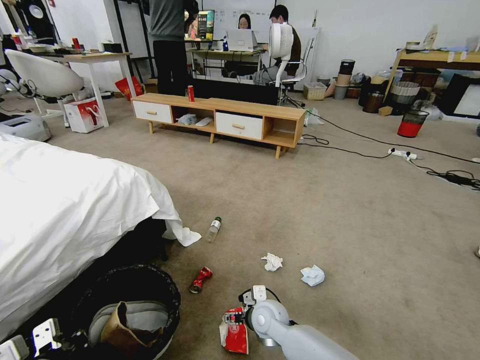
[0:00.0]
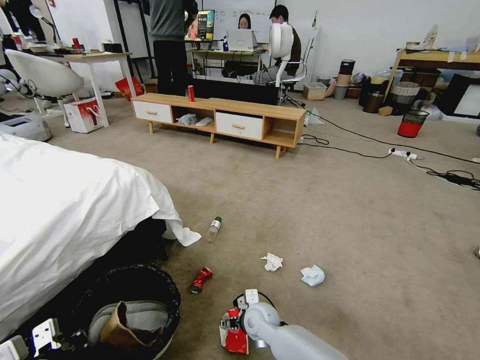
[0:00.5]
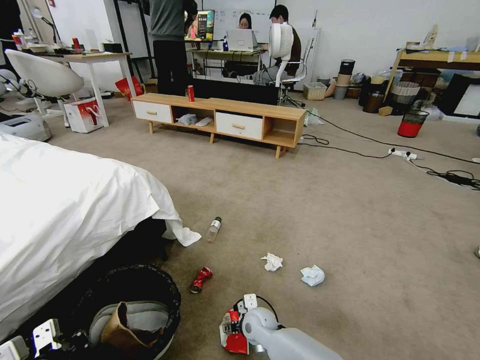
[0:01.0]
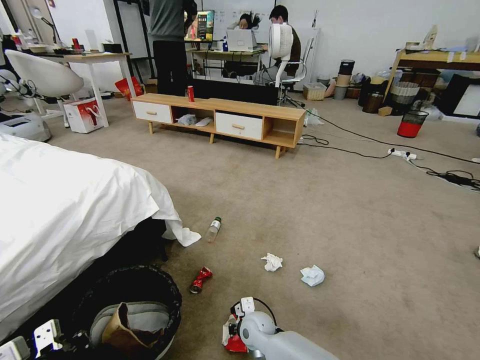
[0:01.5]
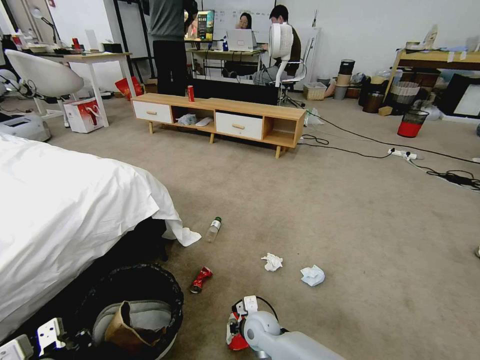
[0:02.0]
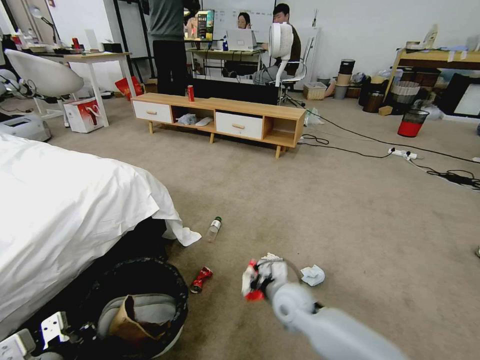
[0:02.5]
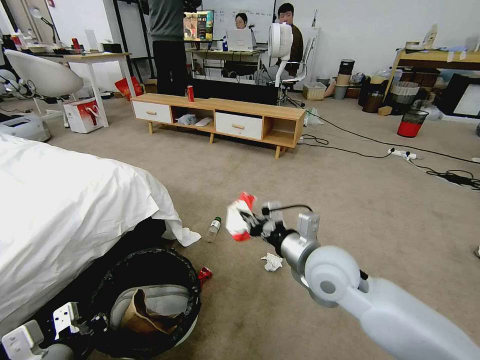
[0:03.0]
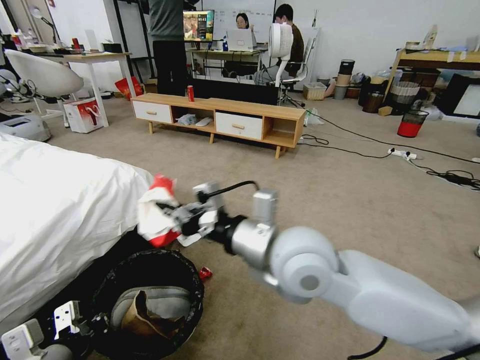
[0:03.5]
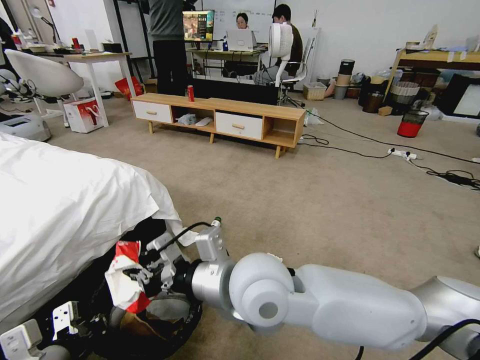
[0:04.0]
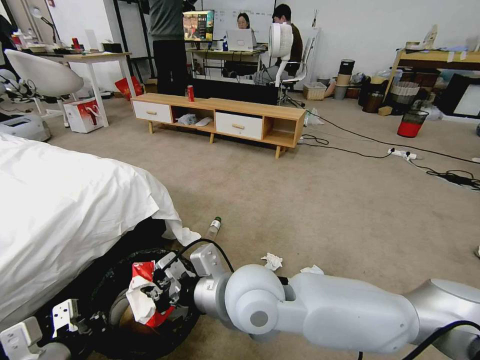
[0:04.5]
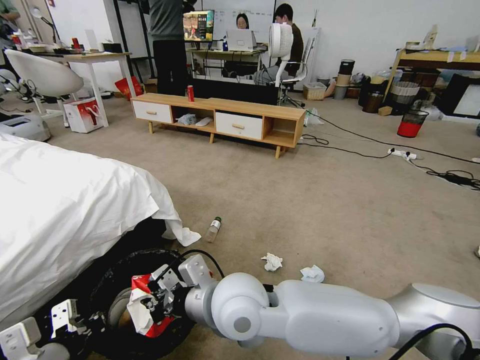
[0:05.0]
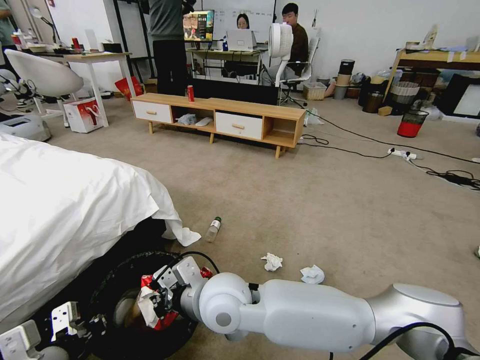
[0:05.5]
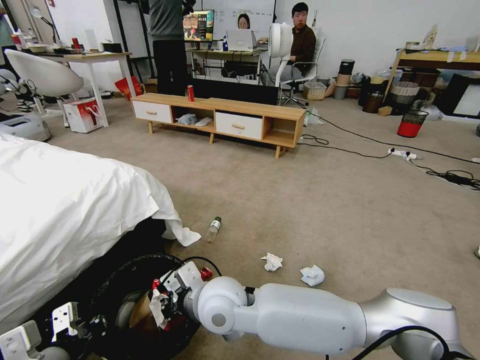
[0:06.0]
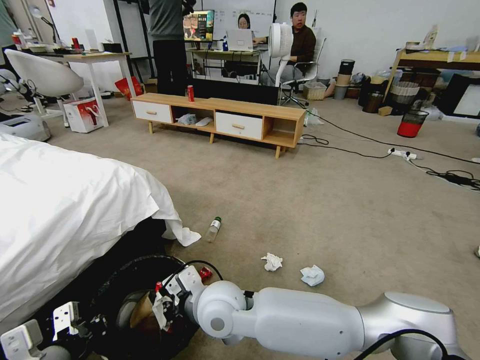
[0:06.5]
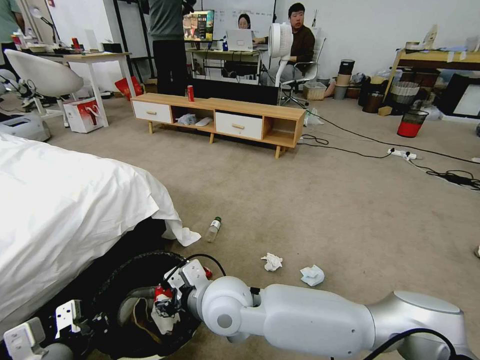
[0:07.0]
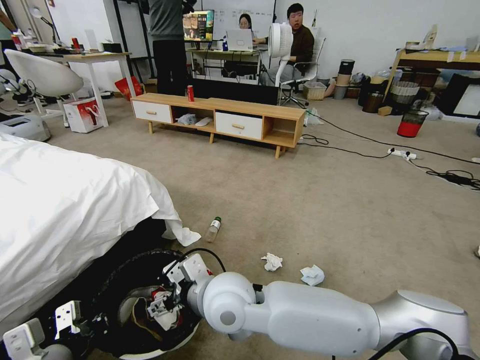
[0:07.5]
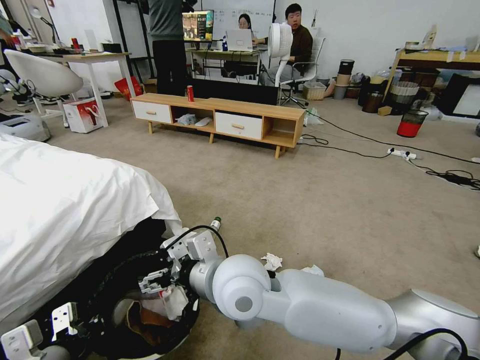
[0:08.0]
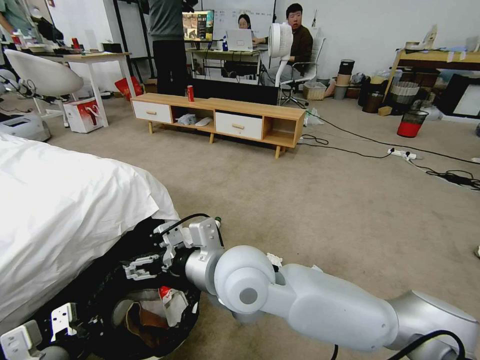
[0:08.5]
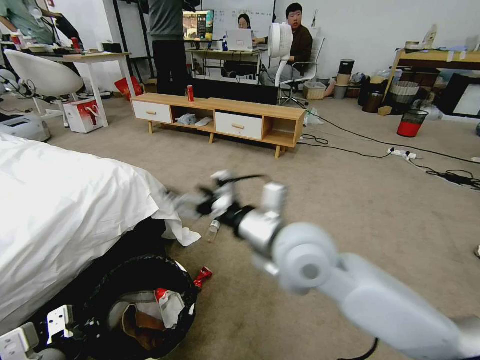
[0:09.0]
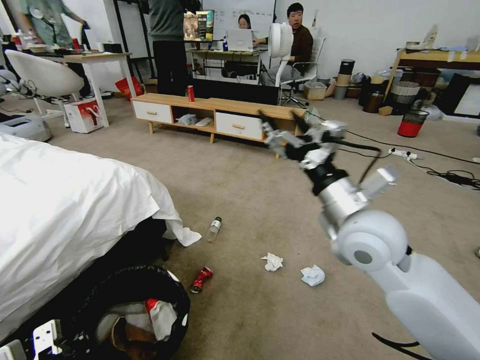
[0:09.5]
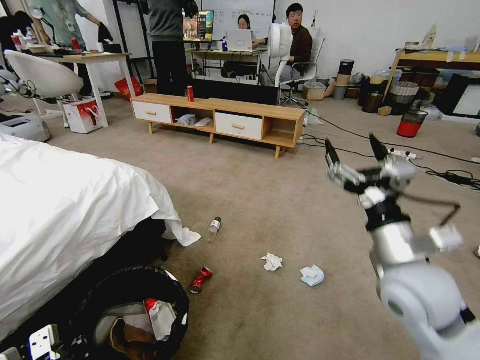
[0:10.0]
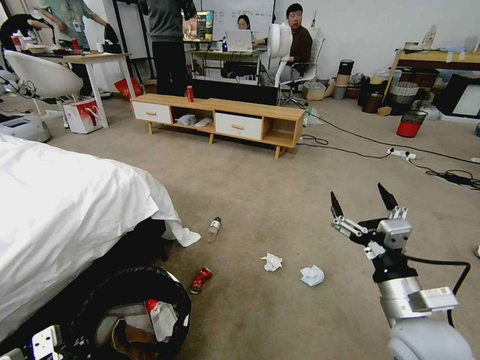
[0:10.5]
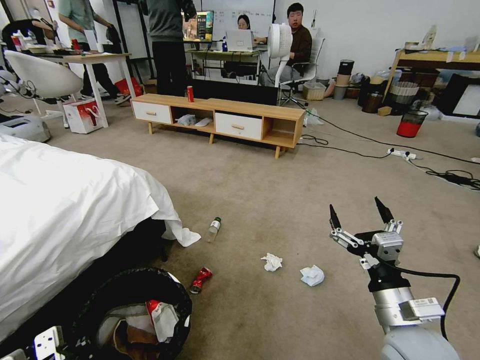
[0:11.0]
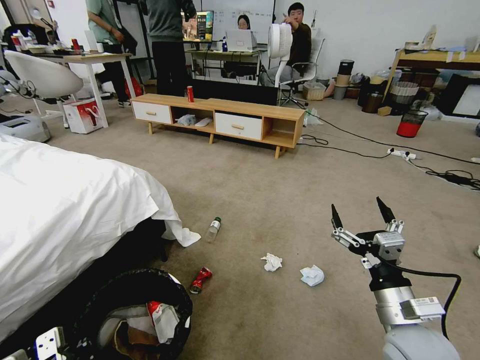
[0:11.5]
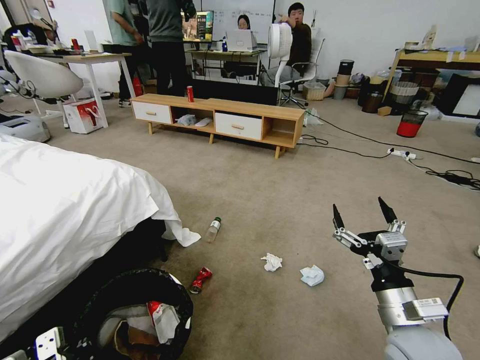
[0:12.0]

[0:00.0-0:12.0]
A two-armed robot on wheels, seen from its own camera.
Task of the whole recording: Pick up the trash bin, then pick up the garbage from the floor and place it into the trash bin.
0.0 to 2.0 s: The right gripper changes place by some 5 cm, and closes.
2.0 to 4.0 s: The left gripper shifts by about 5 cm. The right gripper goes some 35 cm upward.
4.0 to 6.0 s: The right gripper heads downward and to the left, covering roughly 15 cm.
6.0 to 8.0 s: The left gripper closes up, while the right gripper travels upward by about 10 cm, and opens.
8.0 to 10.0 s: The right gripper is displaced to the right by about 25 cm.
10.0 to 12.0 s: The right gripper travels downward and backward by approximately 10 cm.

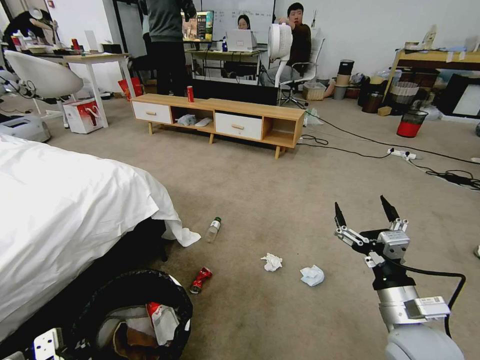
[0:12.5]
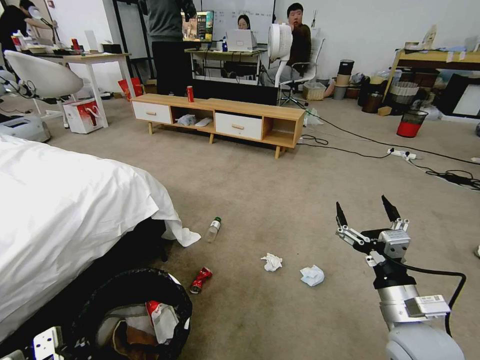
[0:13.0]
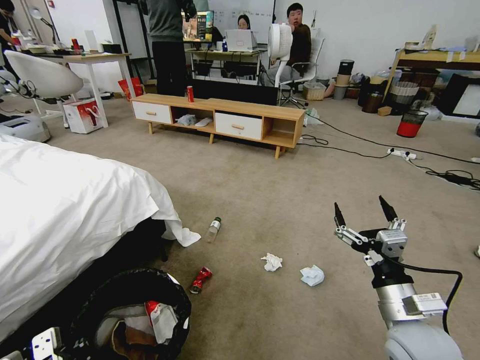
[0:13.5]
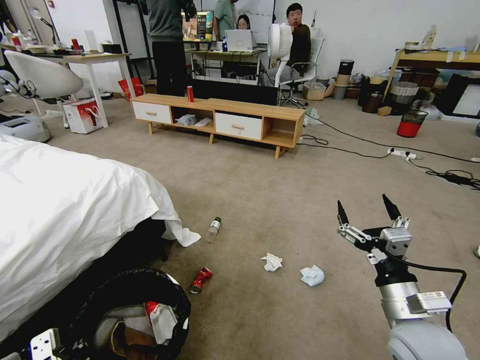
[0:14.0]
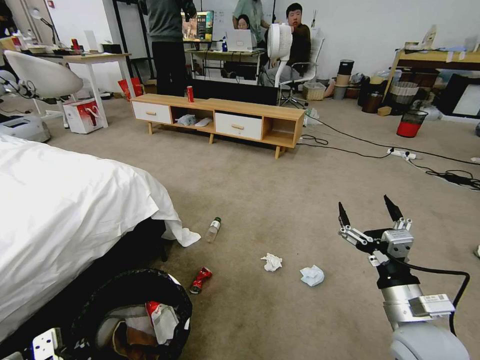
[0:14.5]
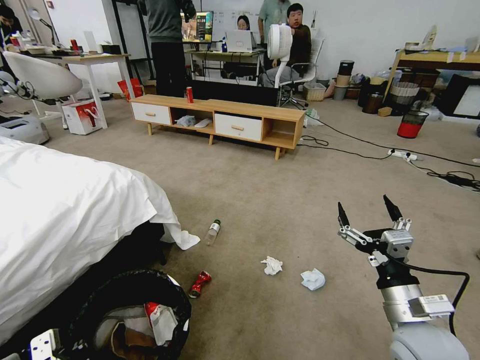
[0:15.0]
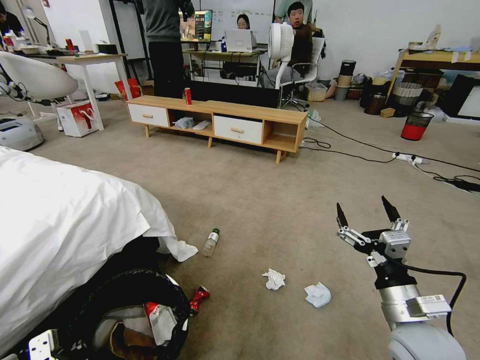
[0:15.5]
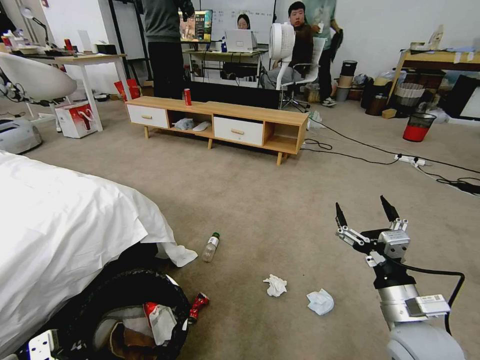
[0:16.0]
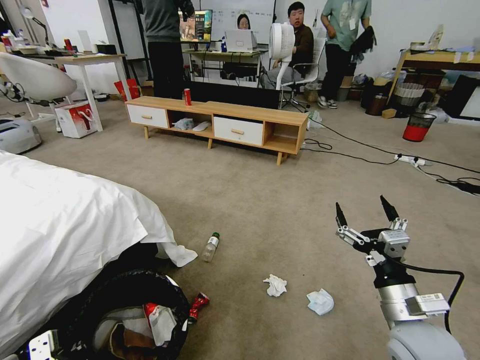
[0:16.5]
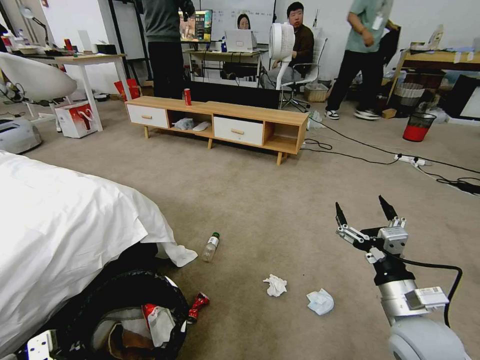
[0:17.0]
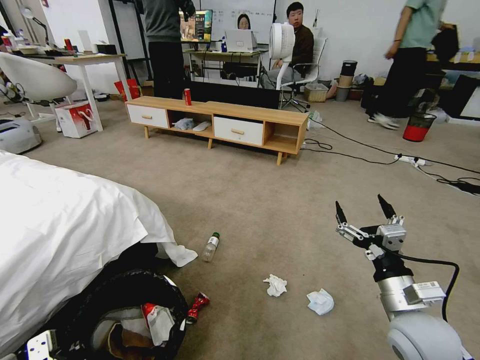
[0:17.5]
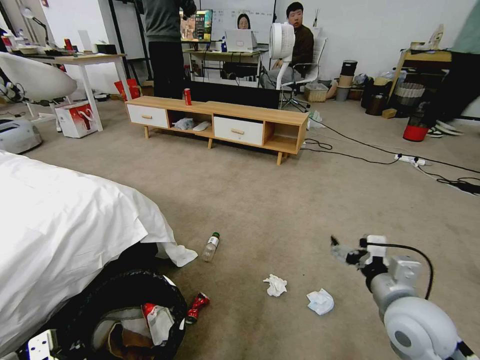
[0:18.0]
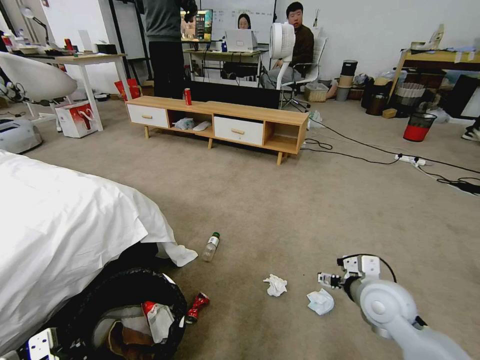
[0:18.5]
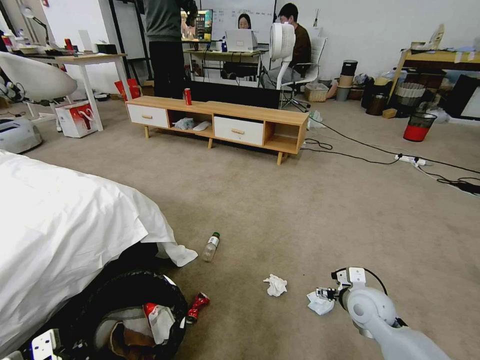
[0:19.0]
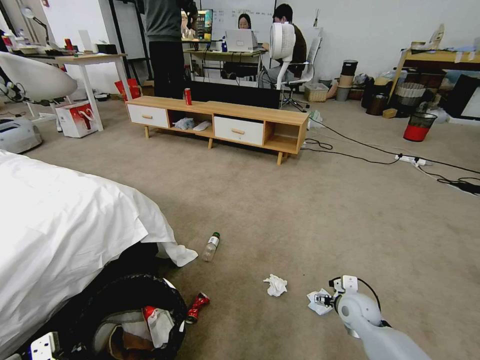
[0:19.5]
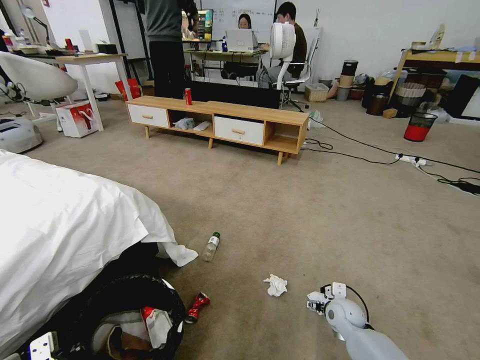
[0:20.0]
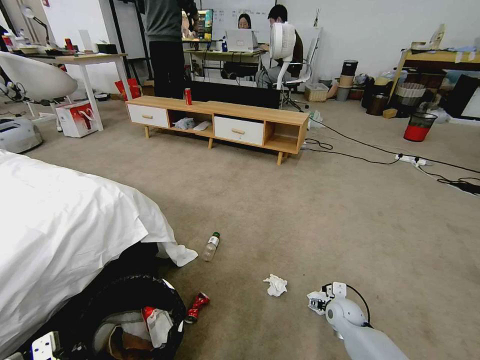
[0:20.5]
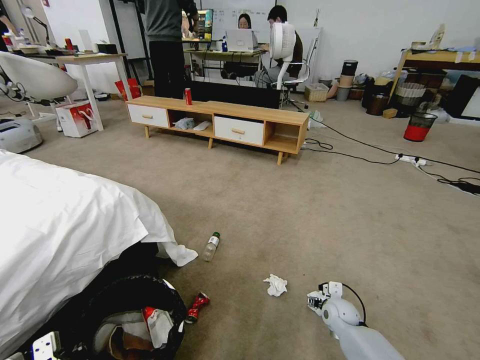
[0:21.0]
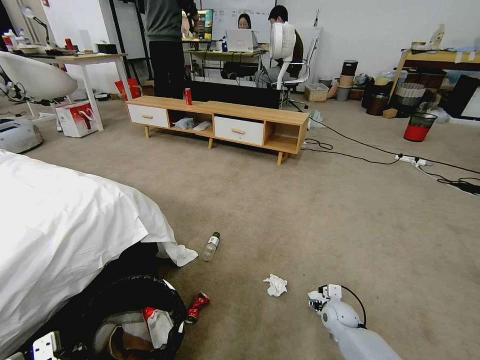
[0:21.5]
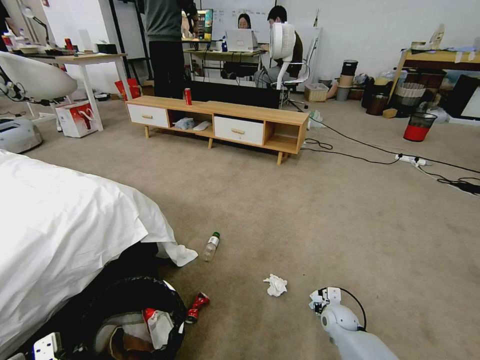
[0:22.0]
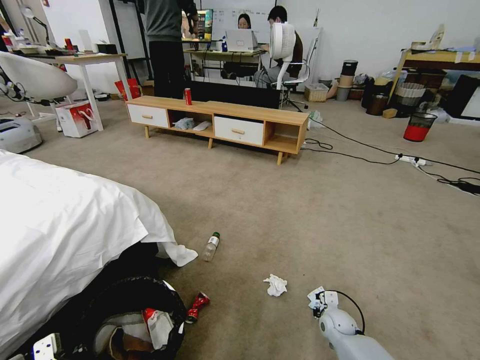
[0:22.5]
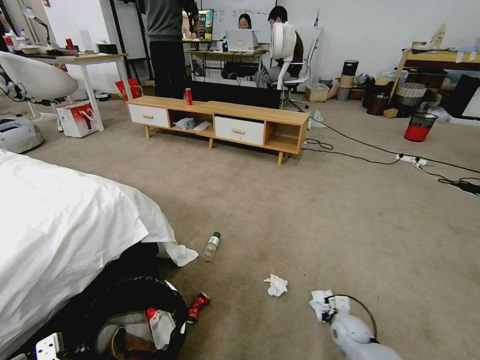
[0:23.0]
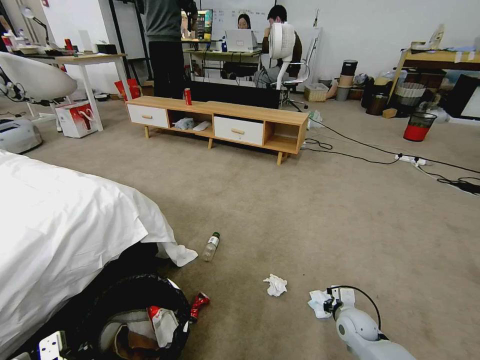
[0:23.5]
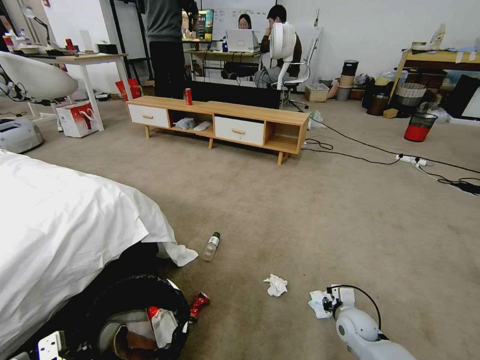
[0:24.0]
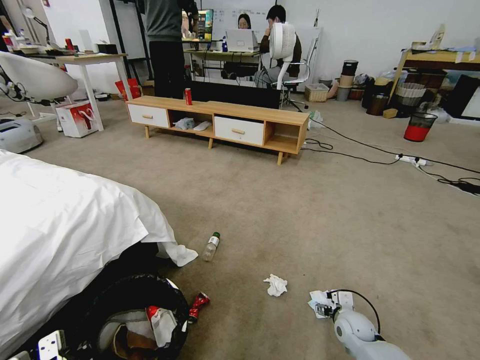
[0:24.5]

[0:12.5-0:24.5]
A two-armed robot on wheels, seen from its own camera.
Task of the whole recording: Pick up the trash bin, then pick up the garbage from the floor and place it into the trash bin.
12.5 to 14.5 s: The two grippers keep their place.
16.5 to 18.5 s: The right gripper moves forward, approximately 10 cm.
18.5 to 20.5 s: The right gripper shifts approximately 20 cm downward.
20.5 to 22.5 s: The right gripper closes its fingers.
22.5 to 24.5 s: The right gripper opens its fingers.

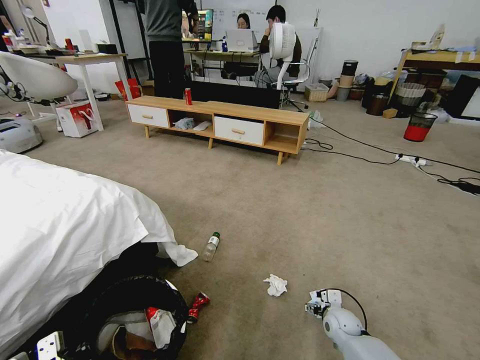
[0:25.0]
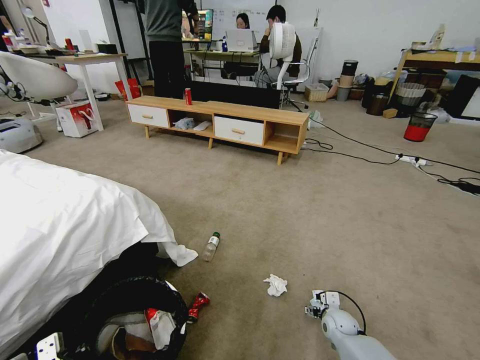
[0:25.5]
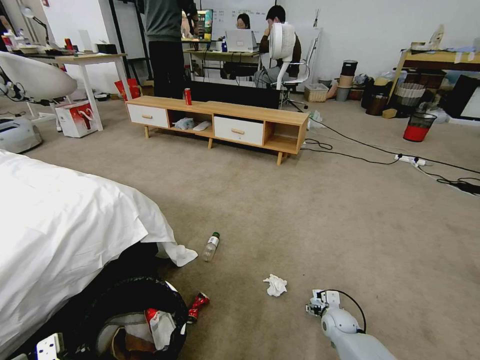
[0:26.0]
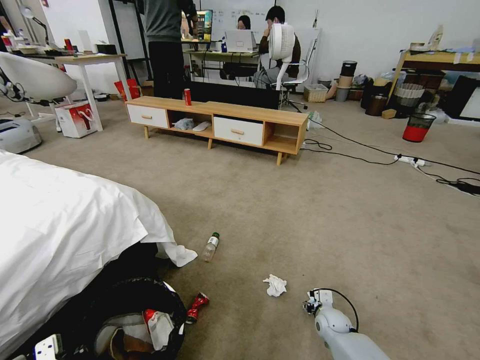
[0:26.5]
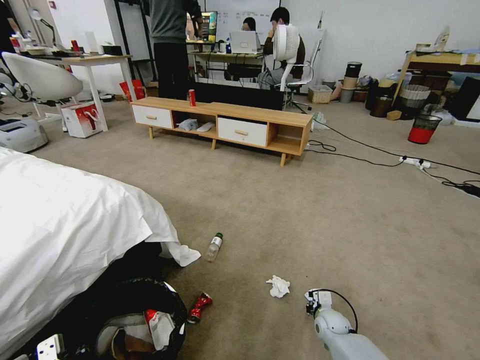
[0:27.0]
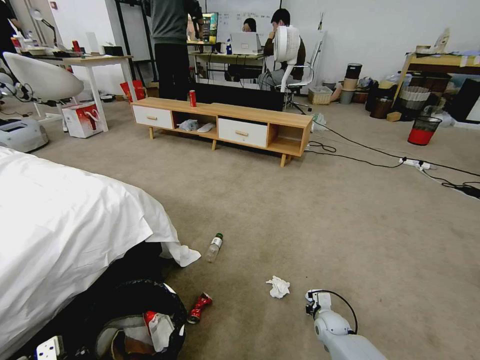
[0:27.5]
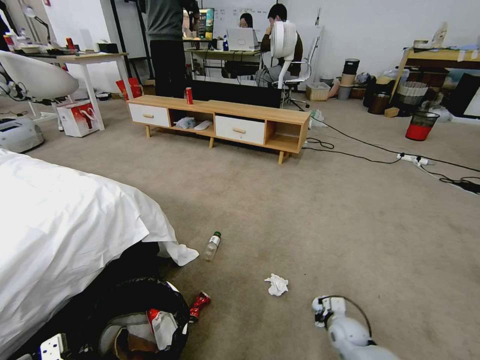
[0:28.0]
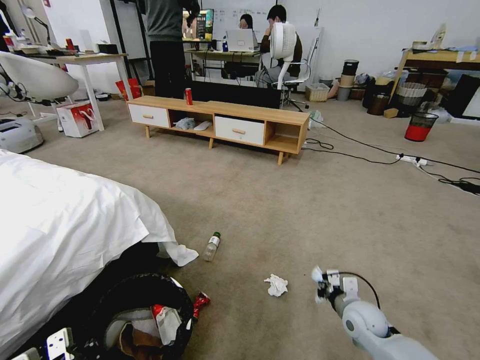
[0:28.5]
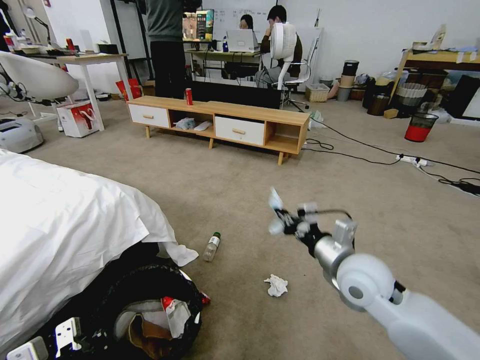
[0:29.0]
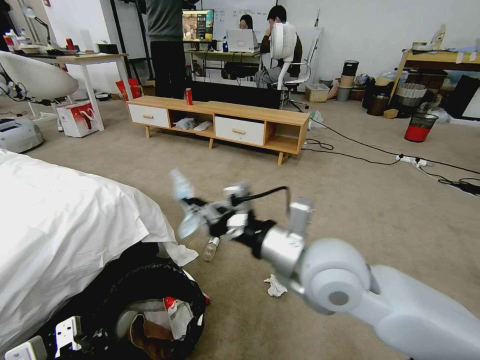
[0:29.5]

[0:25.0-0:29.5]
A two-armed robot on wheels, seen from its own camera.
Task of the whole recording: Pick up the trash bin, then pick up the garbage from the floor and place it into the trash bin.
25.0 to 27.0 s: The right gripper closes.
27.0 to 29.5 s: The right gripper shifts about 50 cm upward.
